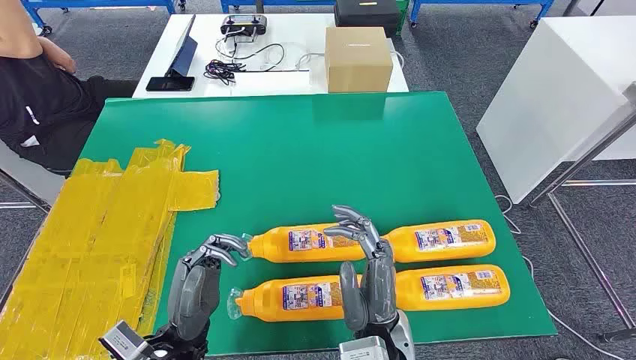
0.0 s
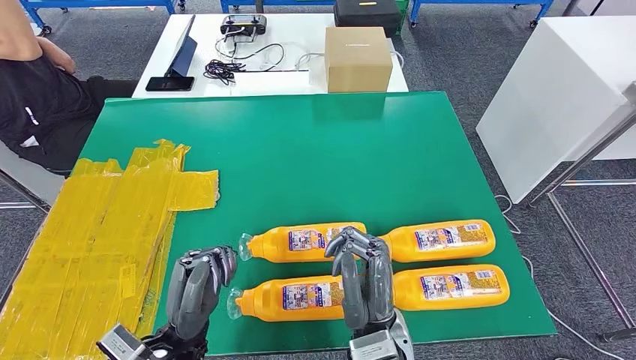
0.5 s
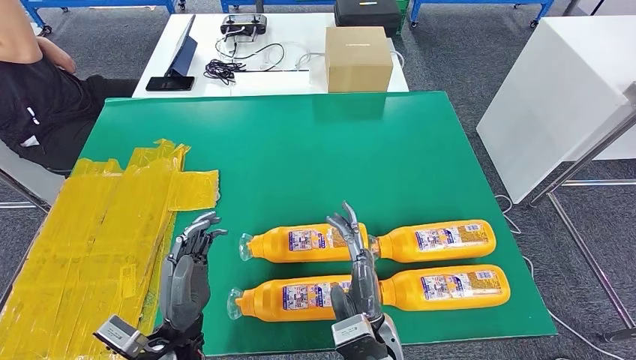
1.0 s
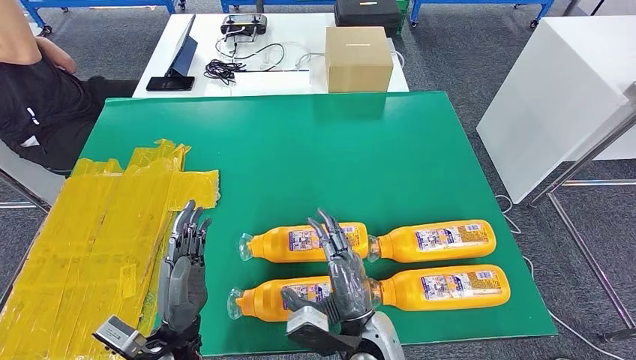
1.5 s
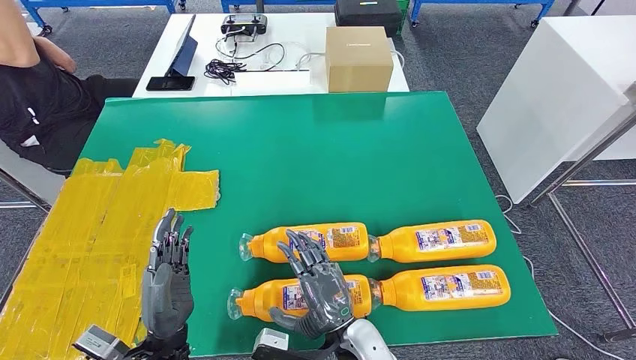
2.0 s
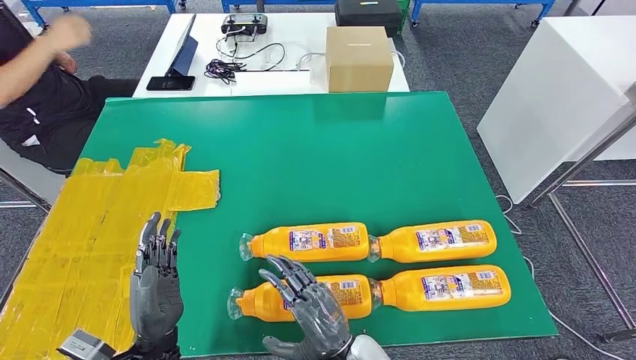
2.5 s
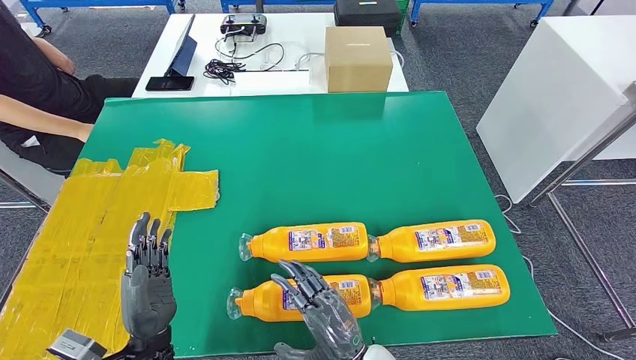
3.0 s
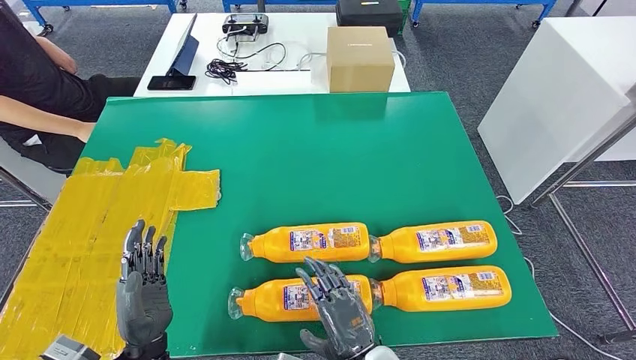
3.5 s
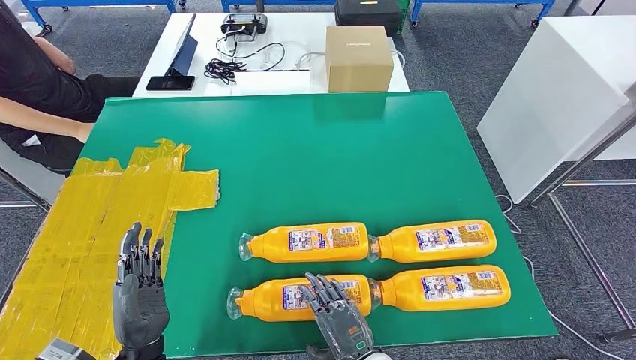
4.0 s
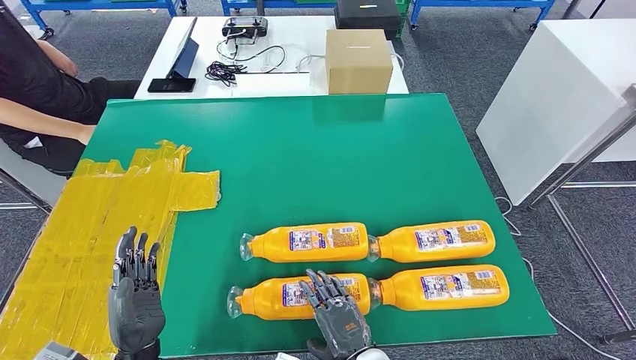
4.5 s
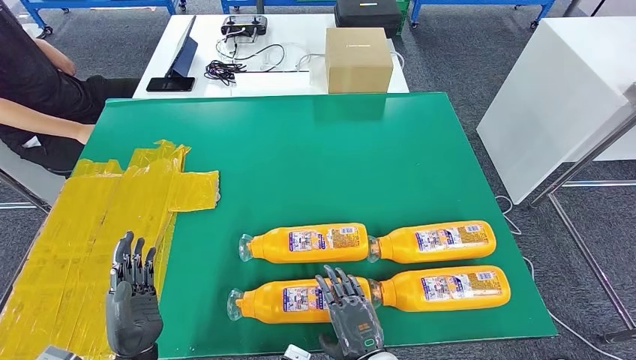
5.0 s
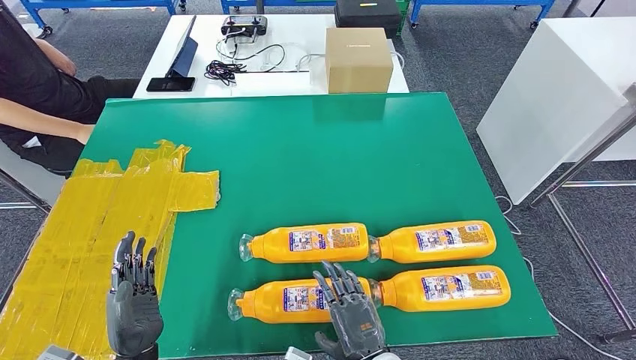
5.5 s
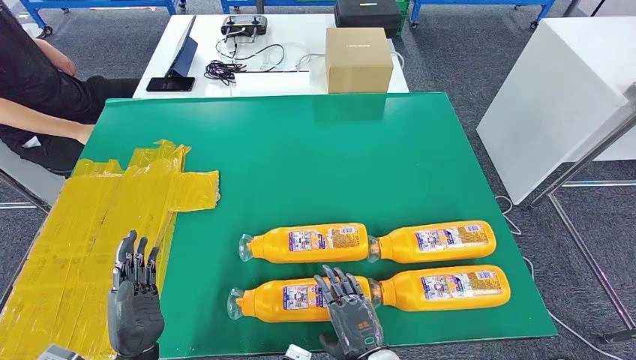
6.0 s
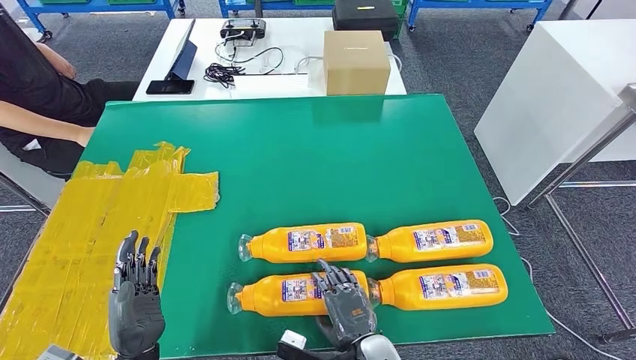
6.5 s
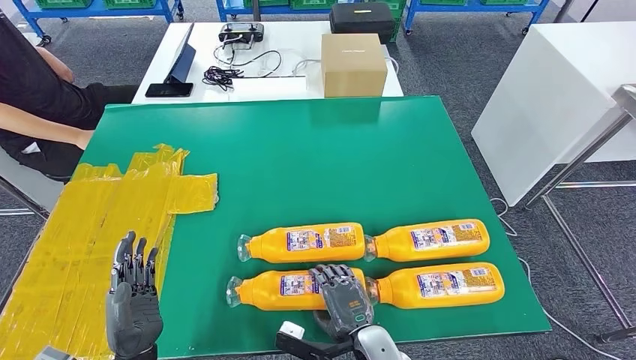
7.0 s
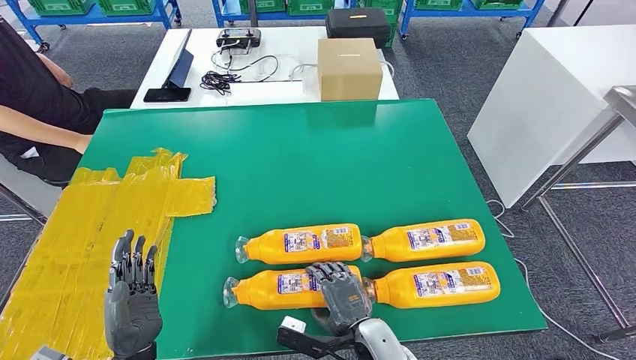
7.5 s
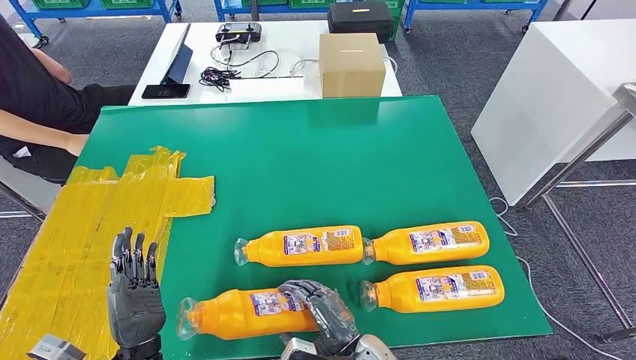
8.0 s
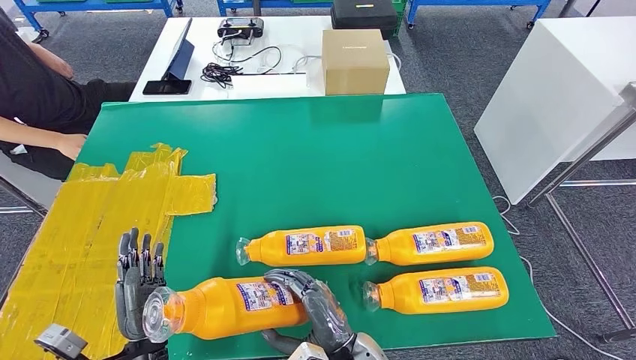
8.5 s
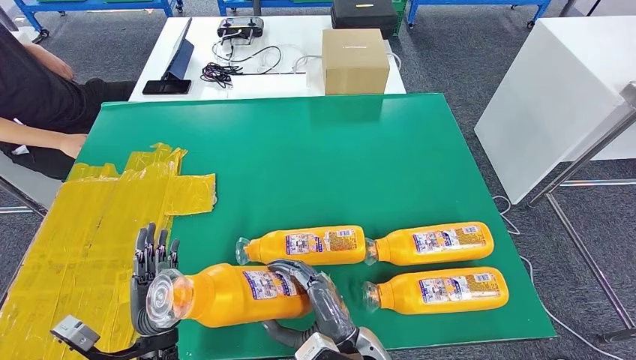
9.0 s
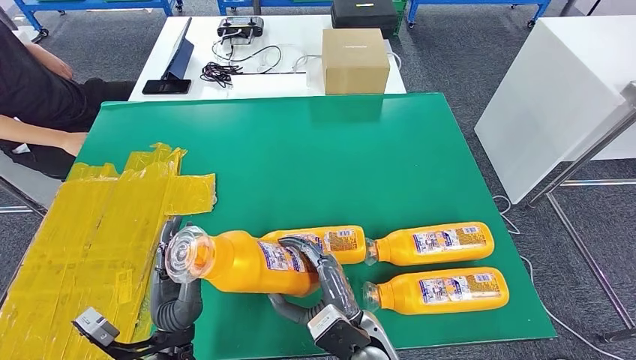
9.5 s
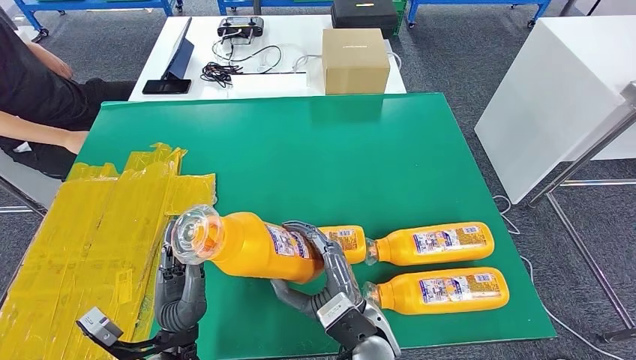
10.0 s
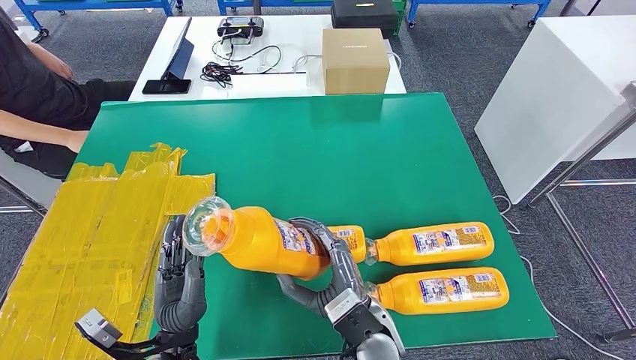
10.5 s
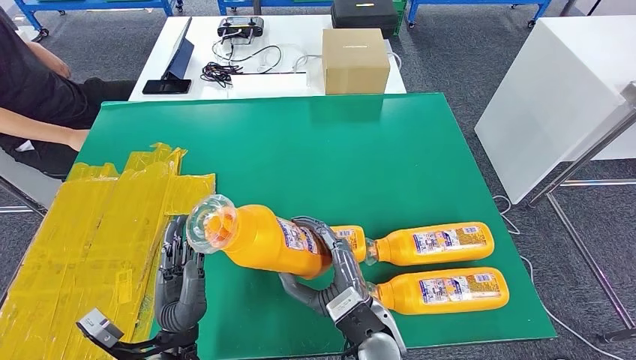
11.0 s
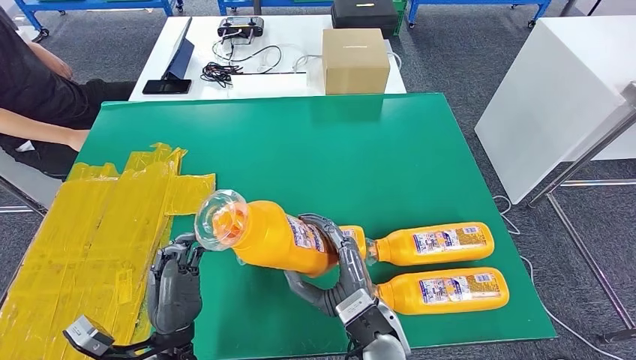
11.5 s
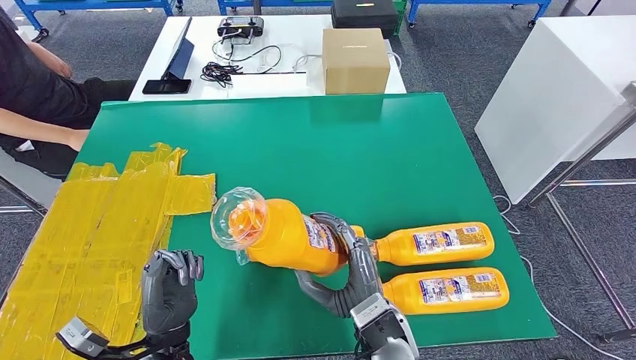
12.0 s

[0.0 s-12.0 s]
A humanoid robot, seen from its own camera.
Step, 0.0 to 9.5 s: Take the bottle from the table.
2.0 to 4.0 s: The right hand ends up some 5 cm from where it was.
4.0 to 6.0 s: There are only small adjustments of the hands.
10.0 to 12.0 s: The hands stay close to where they were, moving slightly.

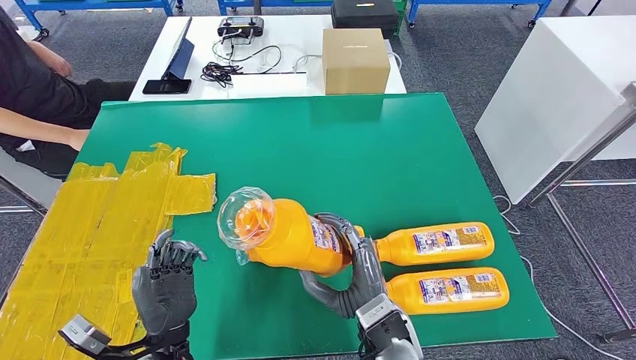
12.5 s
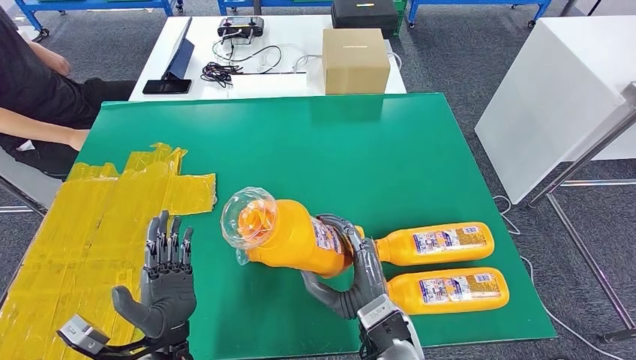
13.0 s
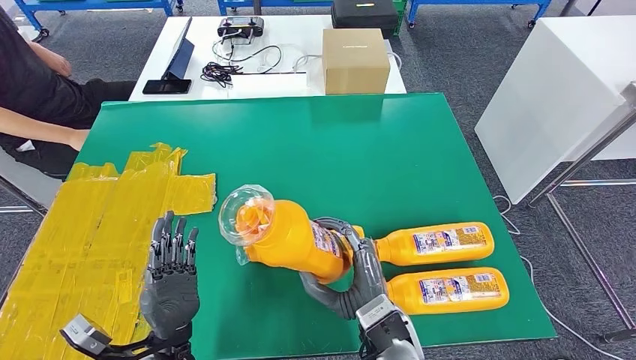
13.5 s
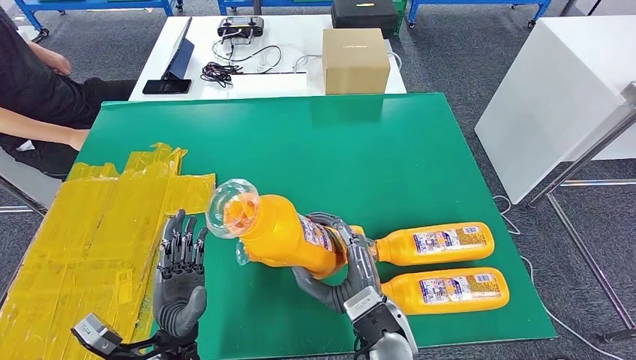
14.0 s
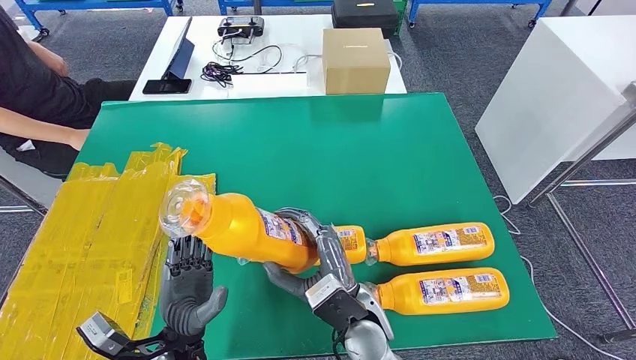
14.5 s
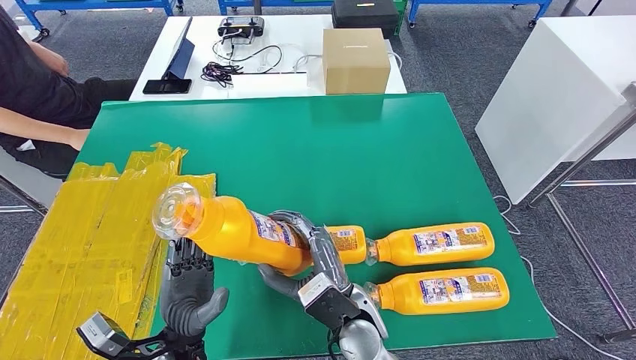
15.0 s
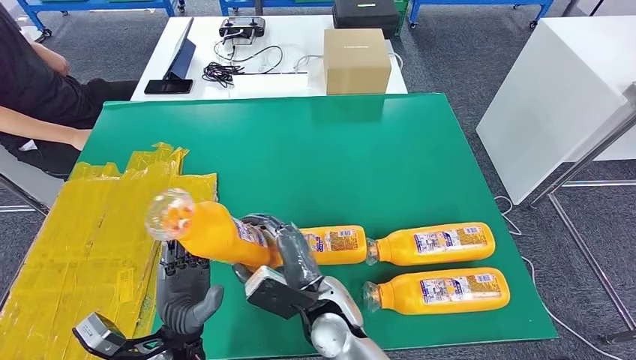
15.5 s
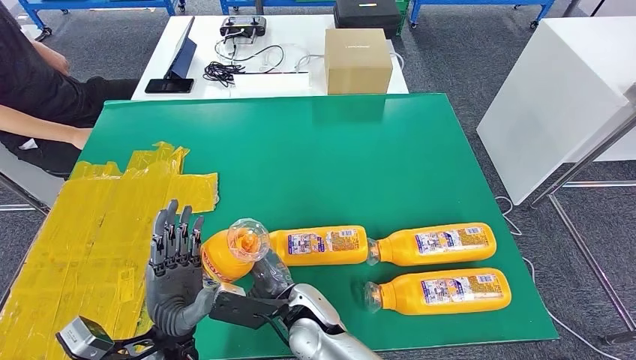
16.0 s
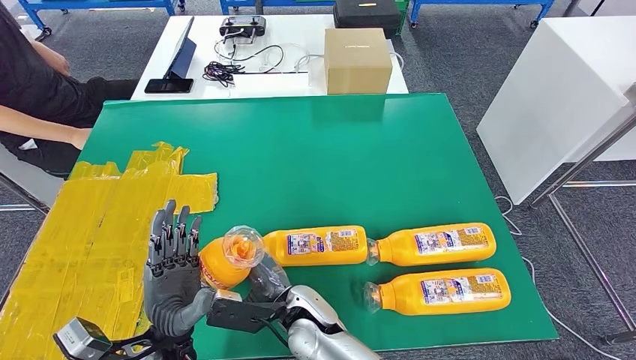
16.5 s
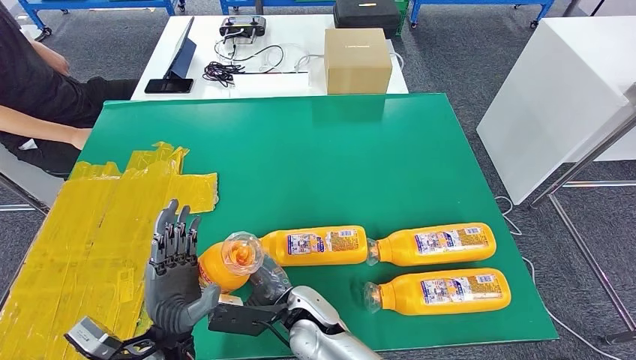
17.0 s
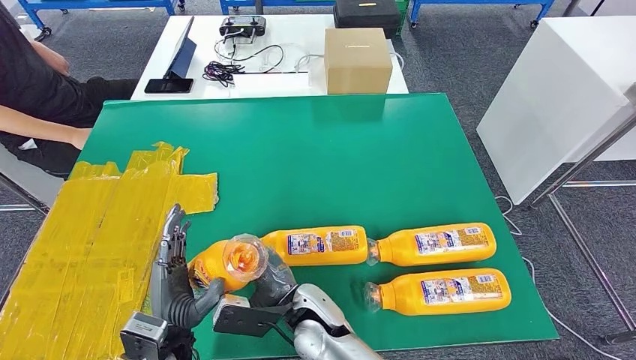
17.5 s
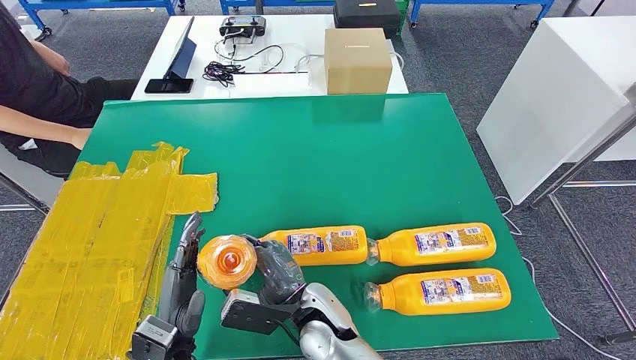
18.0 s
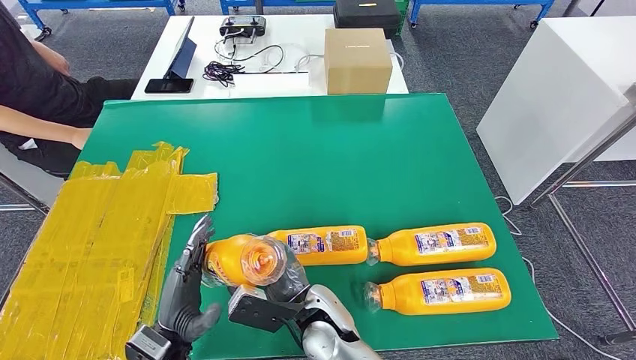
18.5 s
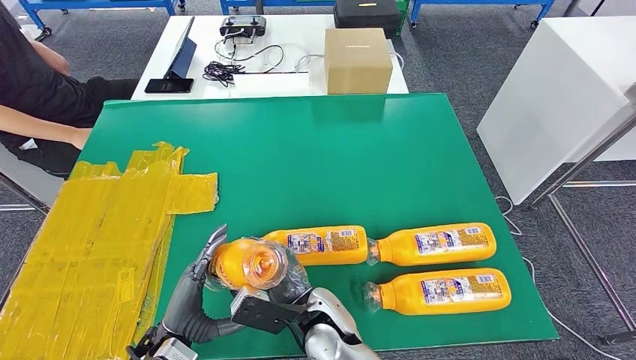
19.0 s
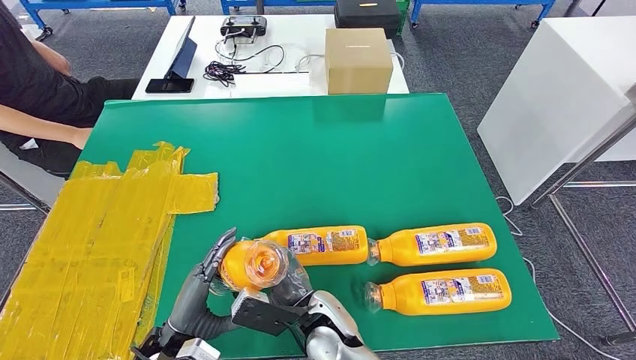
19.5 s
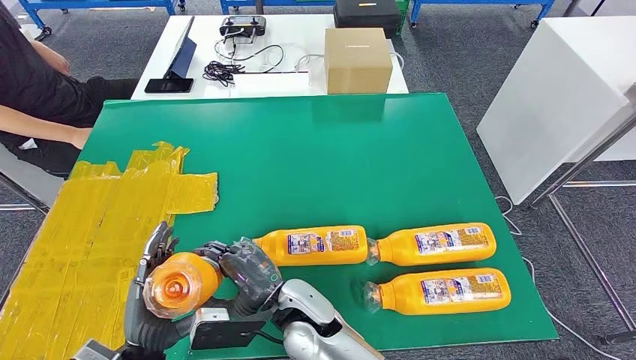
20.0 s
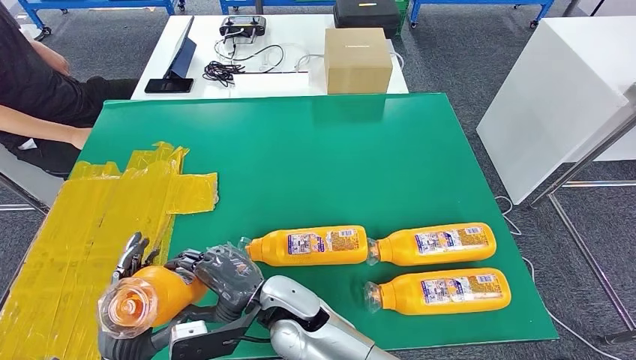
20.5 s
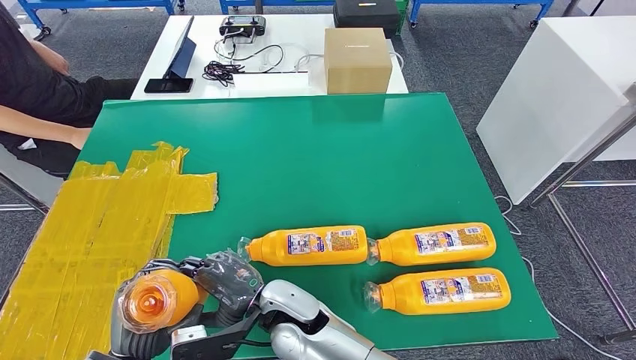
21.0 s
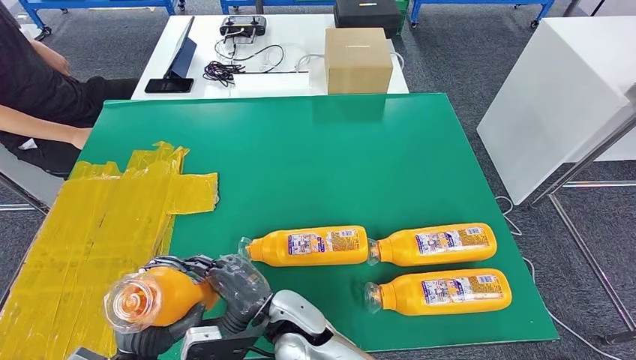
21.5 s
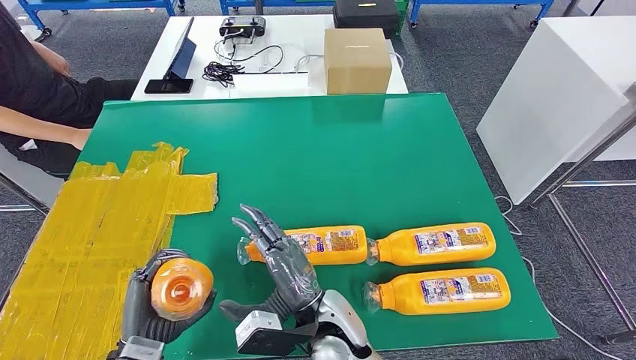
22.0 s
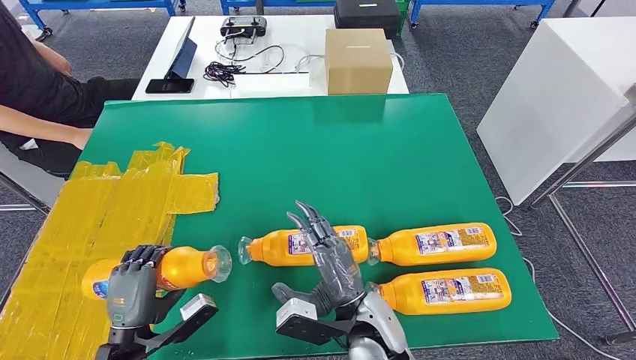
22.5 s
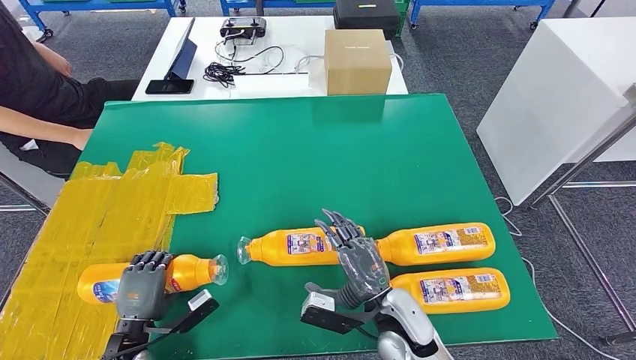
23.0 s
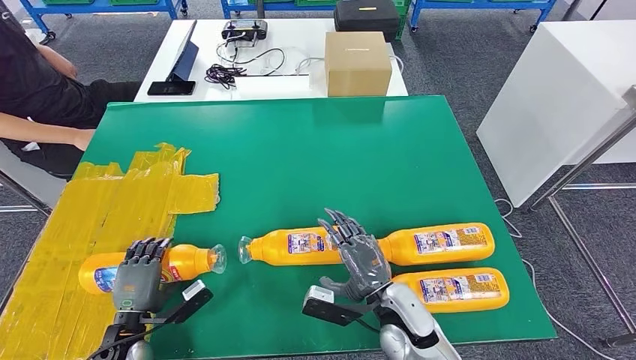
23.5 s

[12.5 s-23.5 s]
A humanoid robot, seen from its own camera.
12.5 to 14.5 s: There are only small adjustments of the hands.
14.5 to 16.0 s: The right hand moves to the left, approximately 10 cm.
20.0 to 21.5 s: The hands move only a little.
